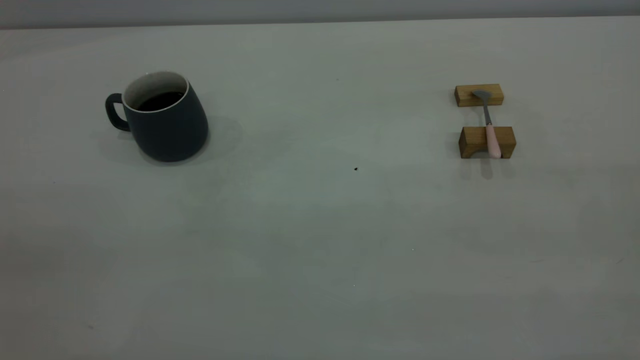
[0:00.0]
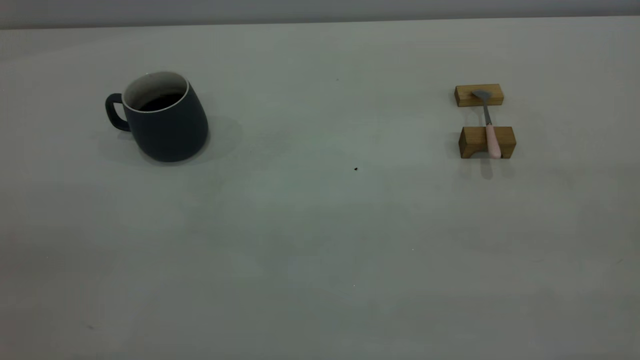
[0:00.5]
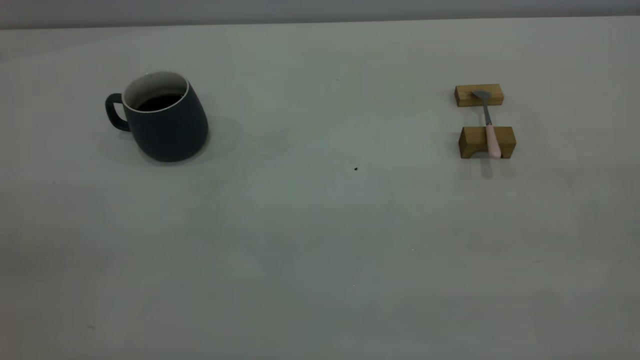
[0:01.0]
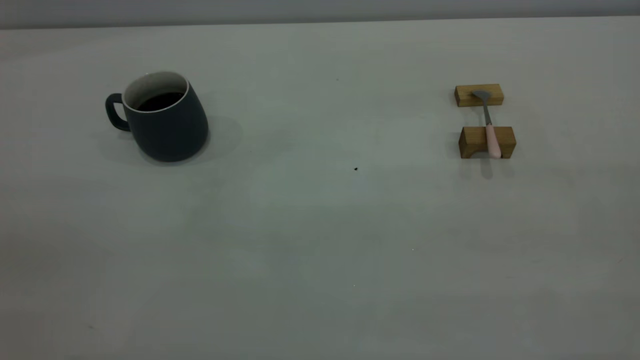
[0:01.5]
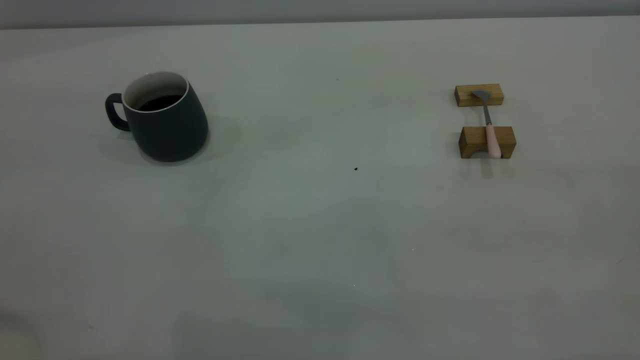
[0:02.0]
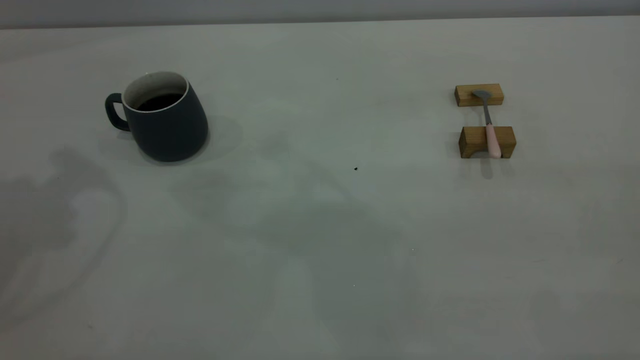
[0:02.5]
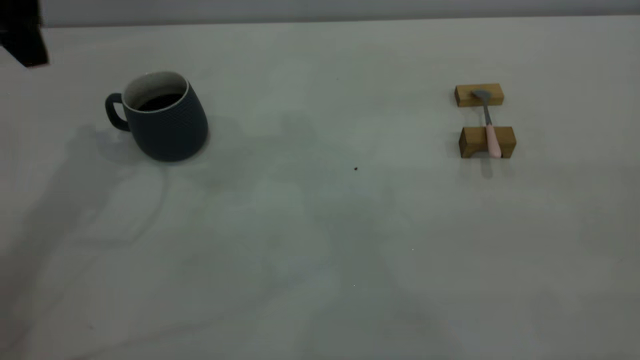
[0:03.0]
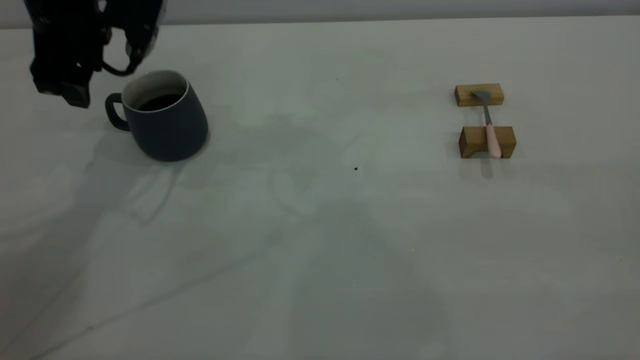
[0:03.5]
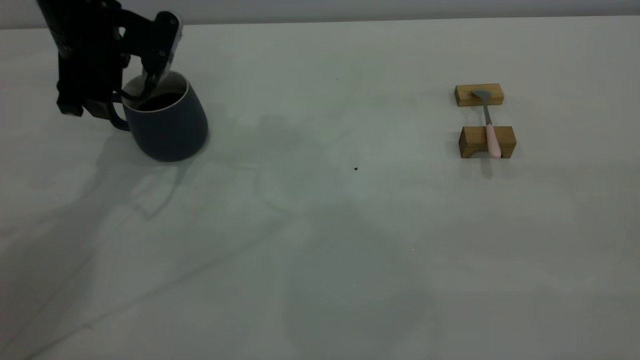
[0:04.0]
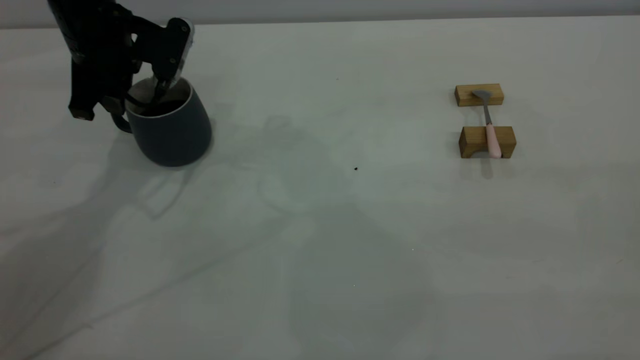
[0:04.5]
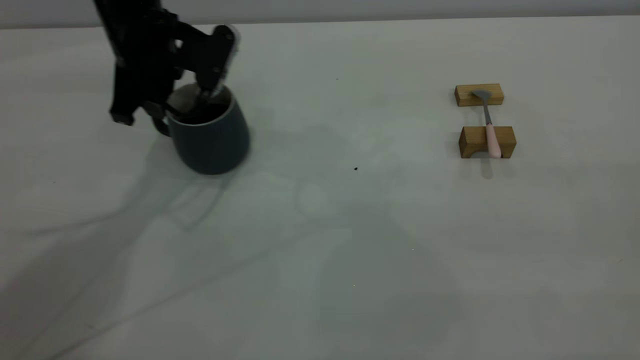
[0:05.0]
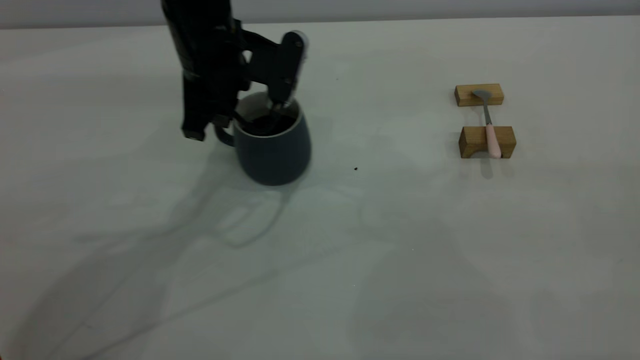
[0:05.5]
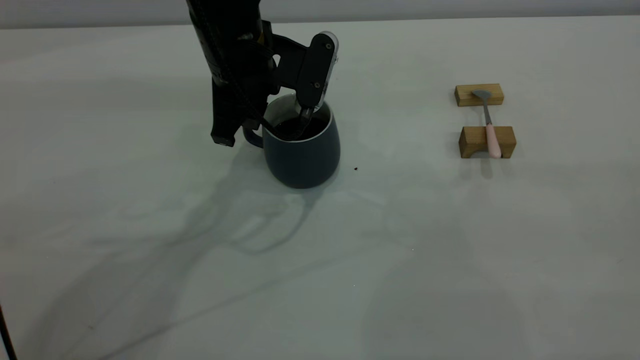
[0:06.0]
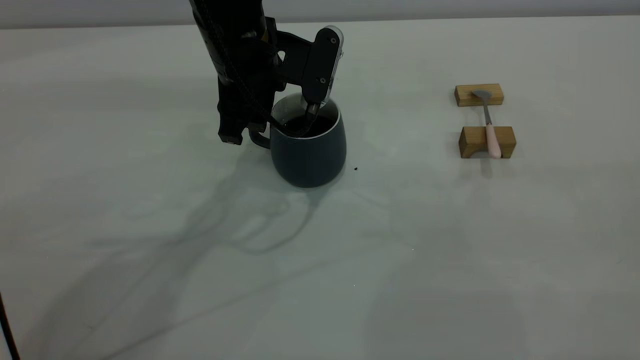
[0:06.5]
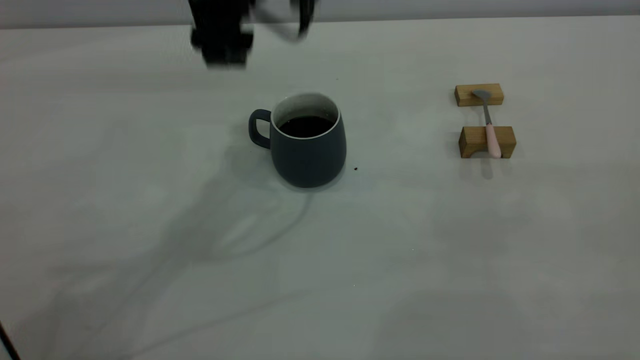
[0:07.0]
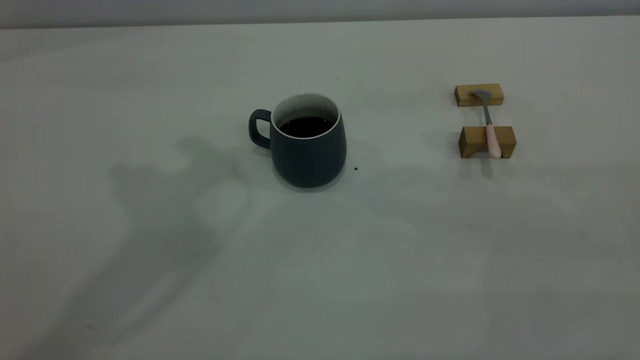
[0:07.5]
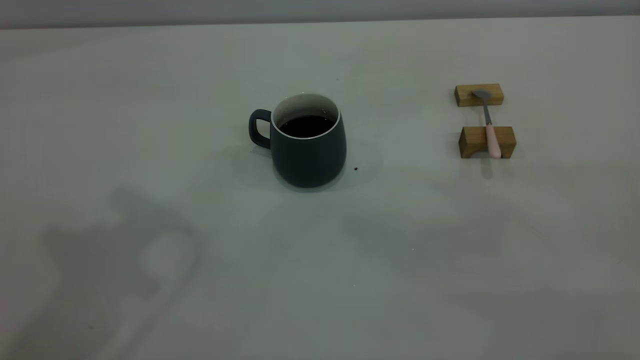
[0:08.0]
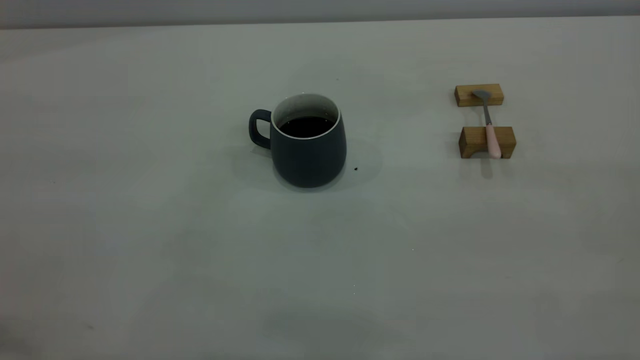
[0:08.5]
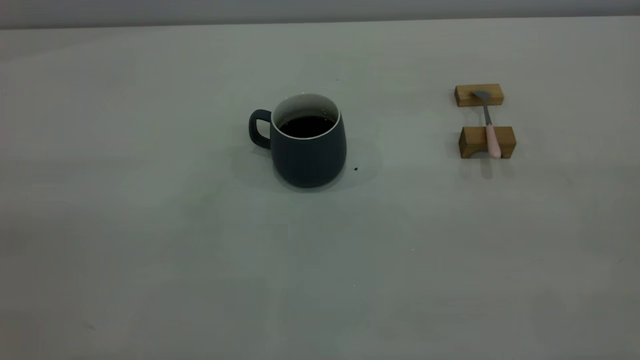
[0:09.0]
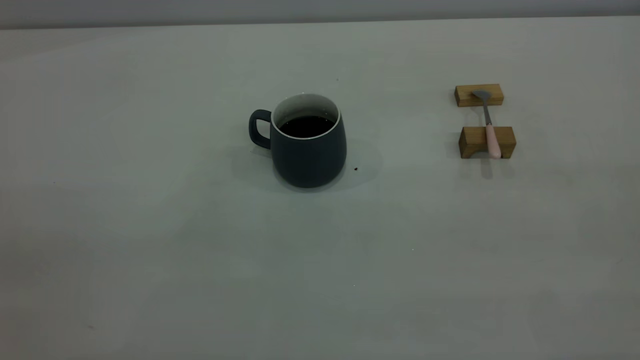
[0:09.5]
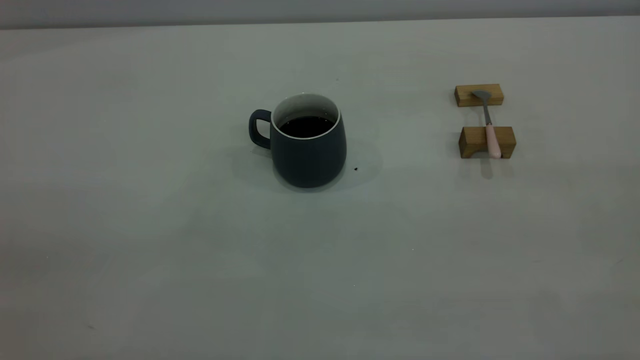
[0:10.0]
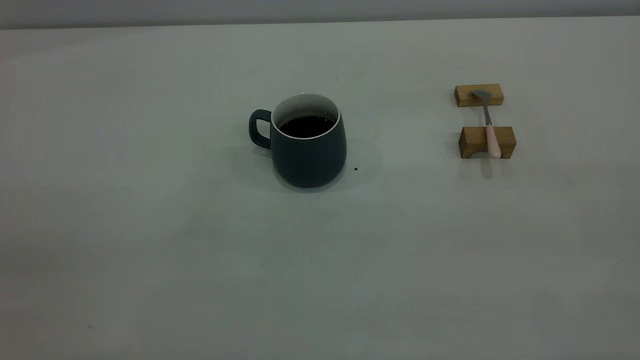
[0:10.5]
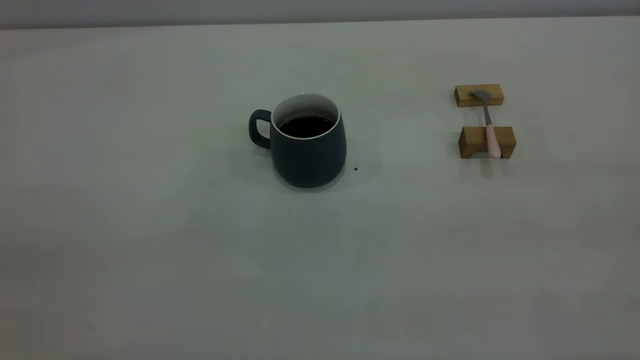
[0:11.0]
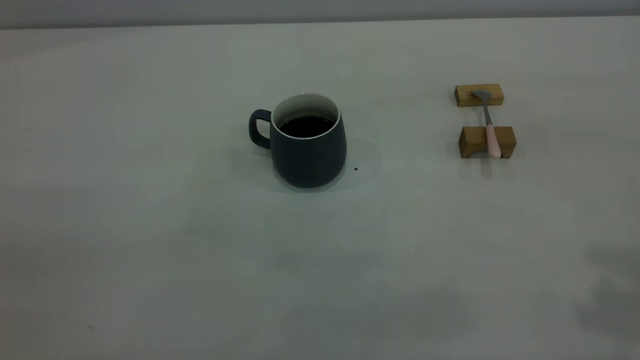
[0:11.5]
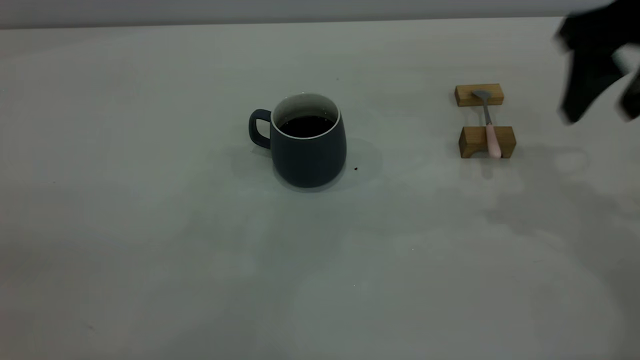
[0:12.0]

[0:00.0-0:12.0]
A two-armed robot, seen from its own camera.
Step, 0:00.0 to 0:06.5: Move the cup with coffee to the center of view.
0:02.0 to 0:04.0: The left gripper heads forward and downward, covering about 40 cm.
0:04.0 to 0:06.0: The left gripper heads to the right, covering about 15 cm, and closes up.
0:06.0 to 0:08.0: The left gripper goes roughly 35 cm upward and backward, and opens, then closes again.
0:10.0 to 0:12.0: The right gripper is displaced forward and downward by approximately 35 cm, and opens.

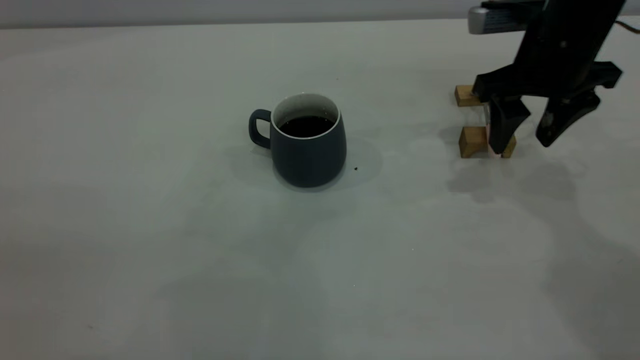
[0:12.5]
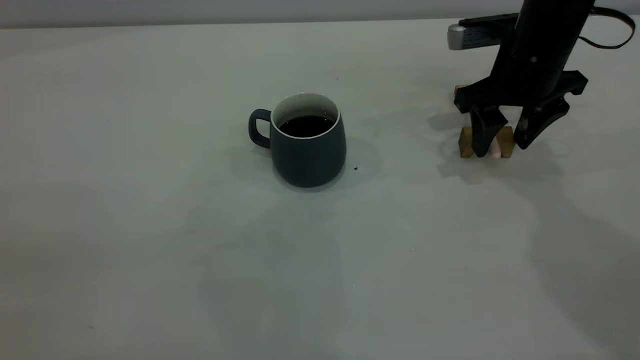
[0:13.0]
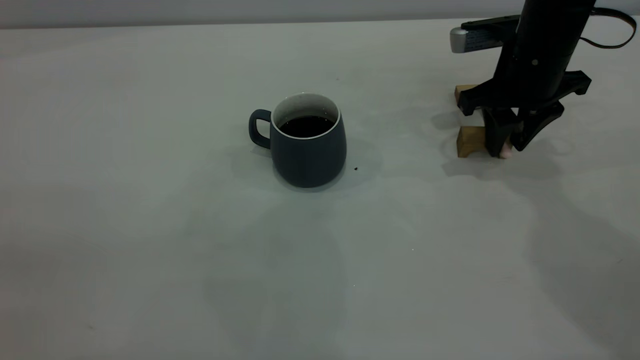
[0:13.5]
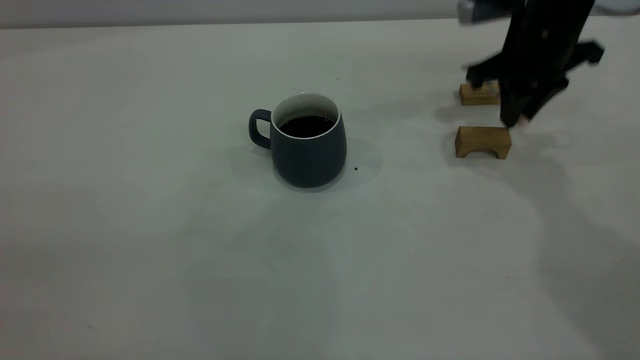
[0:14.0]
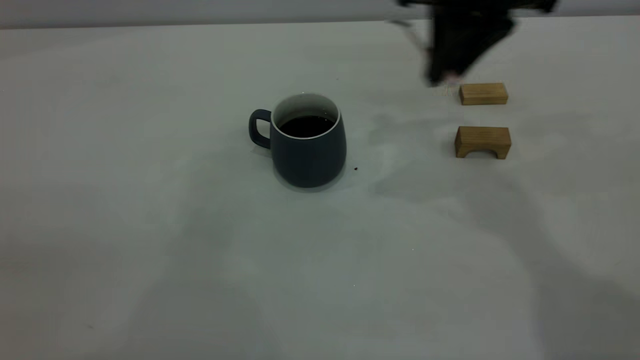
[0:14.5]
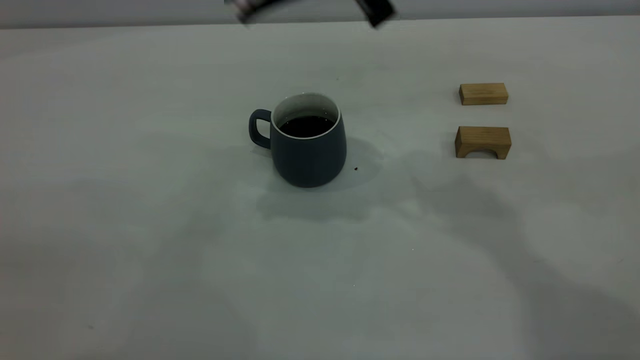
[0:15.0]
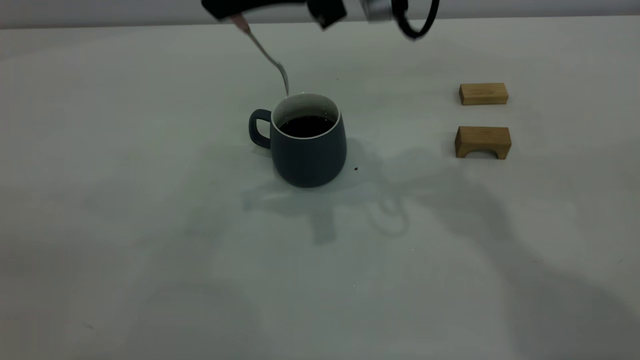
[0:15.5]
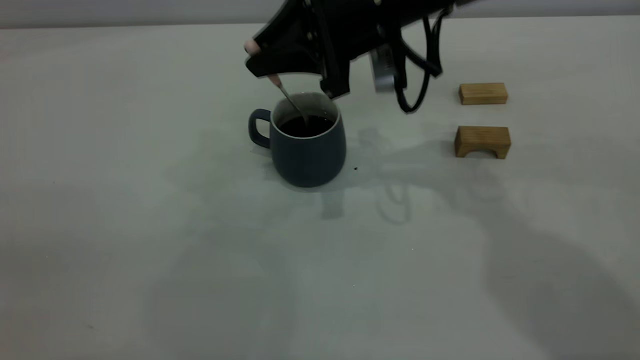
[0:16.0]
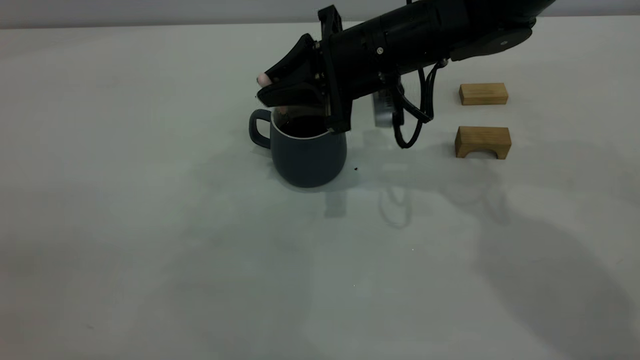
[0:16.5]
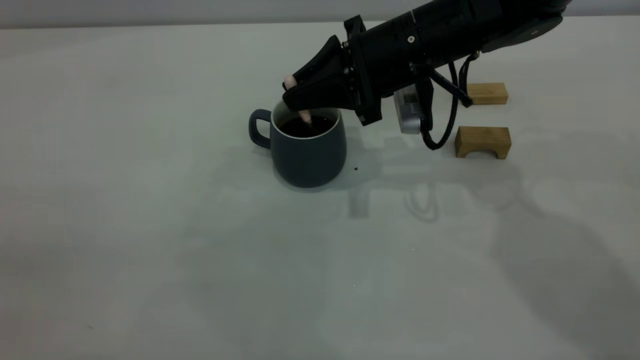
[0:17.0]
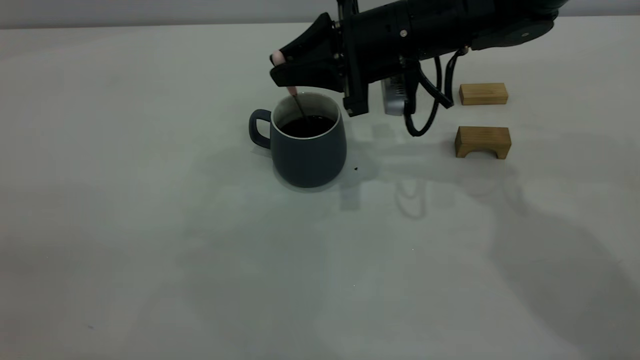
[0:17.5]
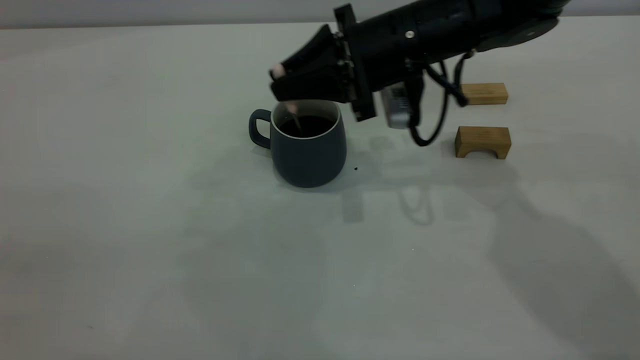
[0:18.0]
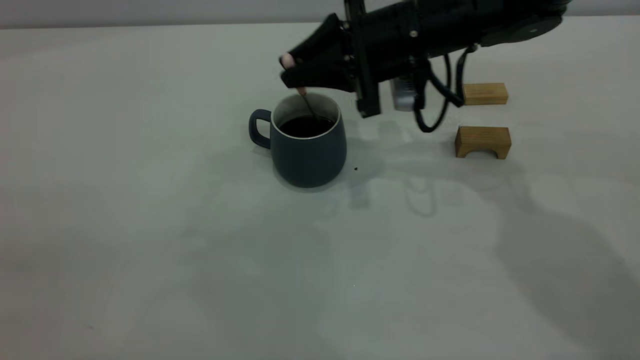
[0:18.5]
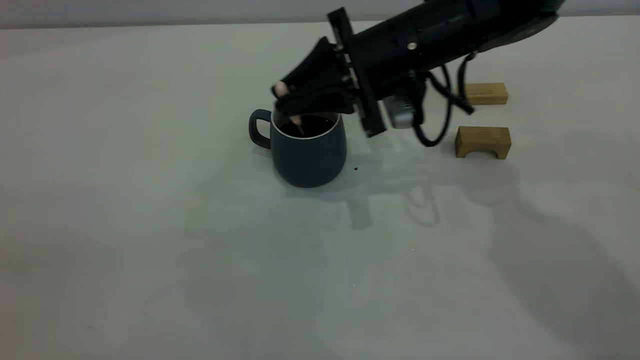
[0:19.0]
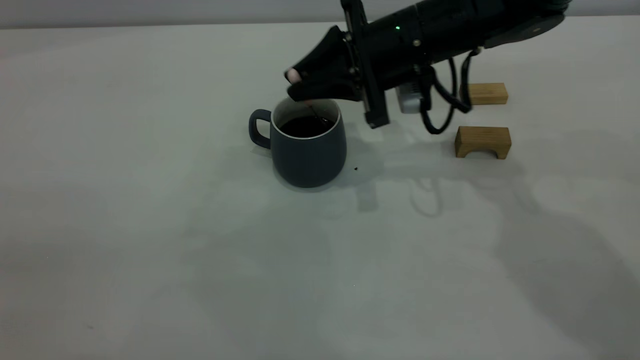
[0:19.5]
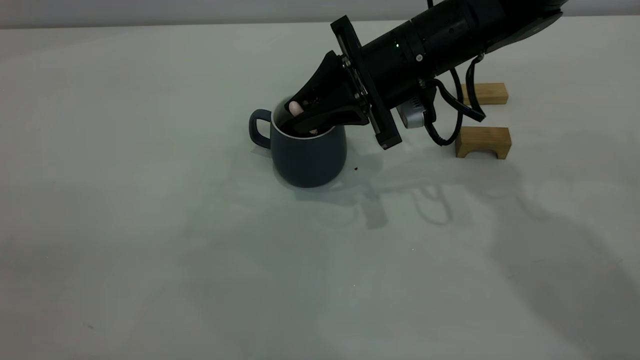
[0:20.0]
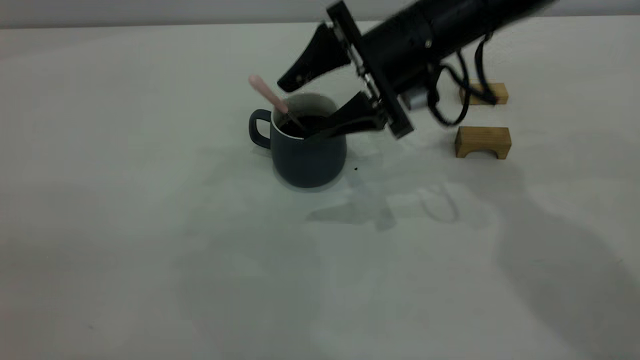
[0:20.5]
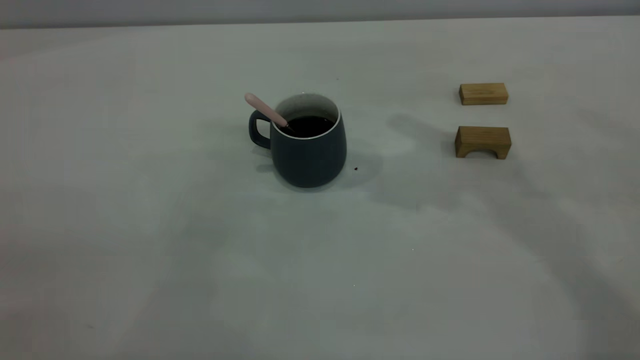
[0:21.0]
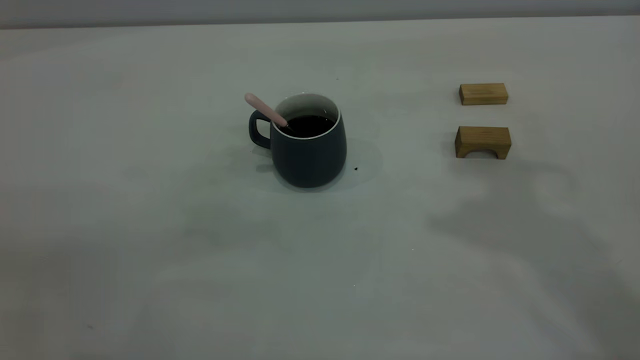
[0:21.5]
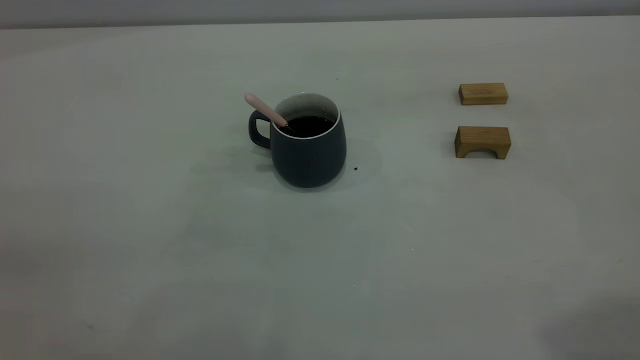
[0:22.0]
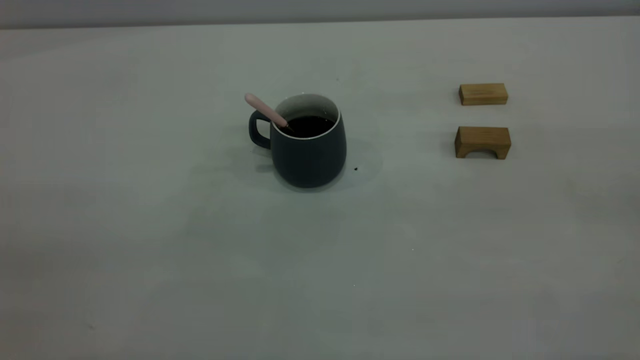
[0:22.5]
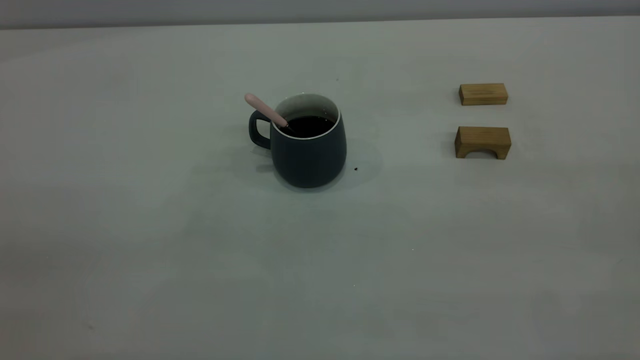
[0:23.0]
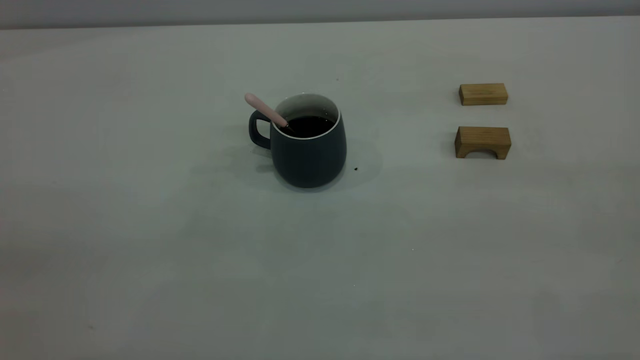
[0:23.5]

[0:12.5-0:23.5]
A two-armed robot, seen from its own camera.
Step, 0:14.5 to 0:20.5: Stir the coffee in the cup.
0:12.5 to 0:14.5: The right gripper heads upward and to the left, covering roughly 15 cm, and closes.
0:14.5 to 0:16.0: The right gripper heads downward and to the left, covering approximately 10 cm.
0:16.0 to 0:20.0: The grippers stay close to where they were, moving slightly.
0:20.0 to 0:21.5: The right gripper travels upward by about 35 cm, and opens, then closes once more.
